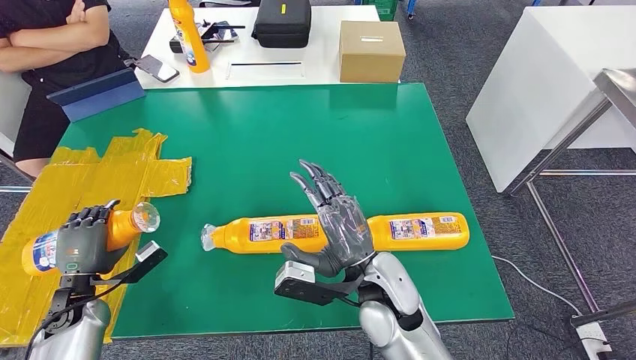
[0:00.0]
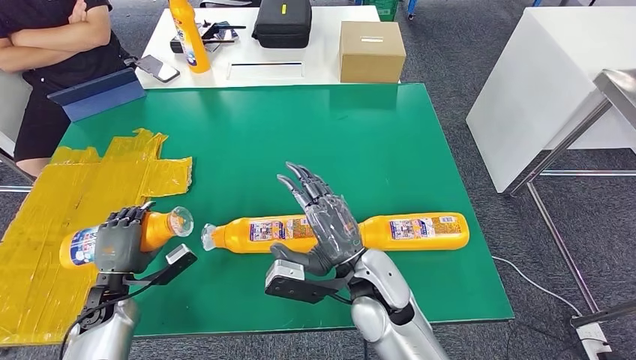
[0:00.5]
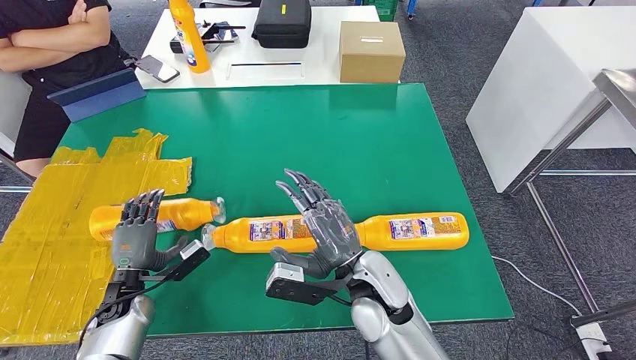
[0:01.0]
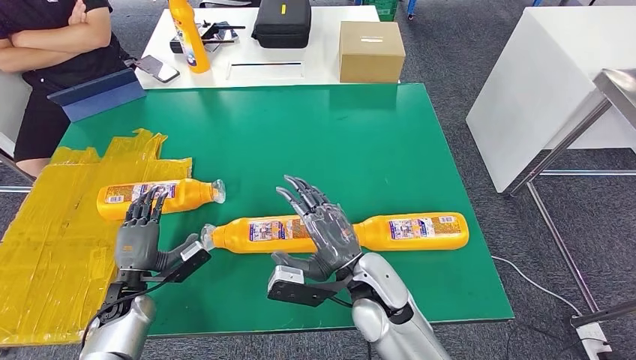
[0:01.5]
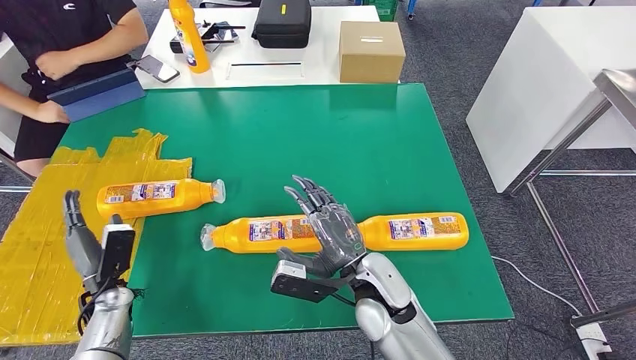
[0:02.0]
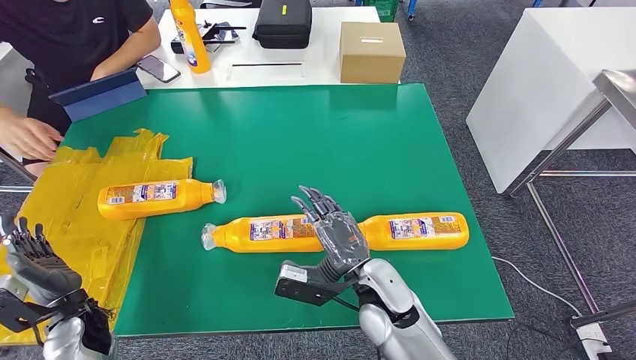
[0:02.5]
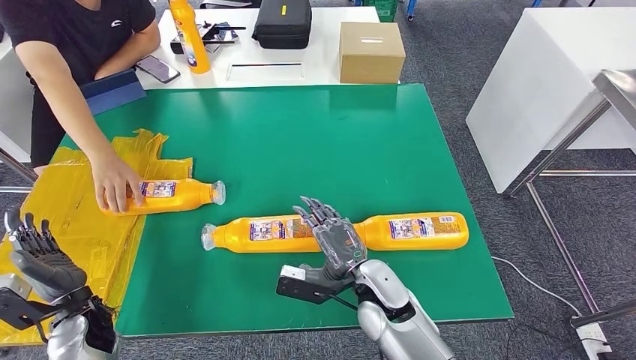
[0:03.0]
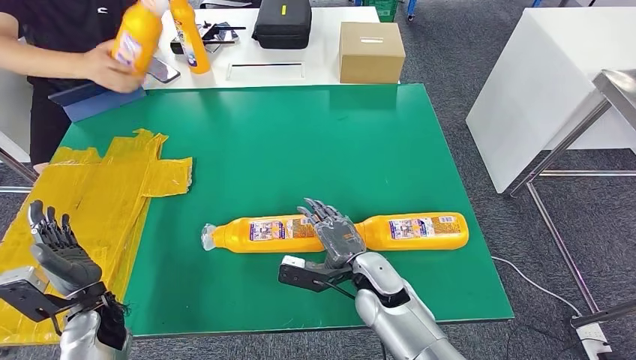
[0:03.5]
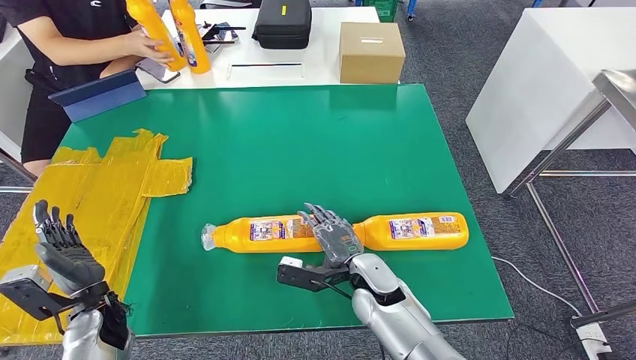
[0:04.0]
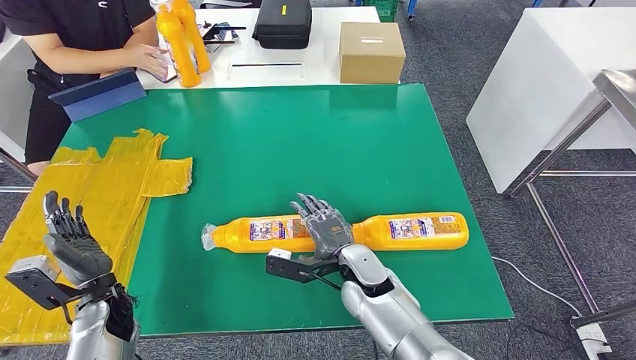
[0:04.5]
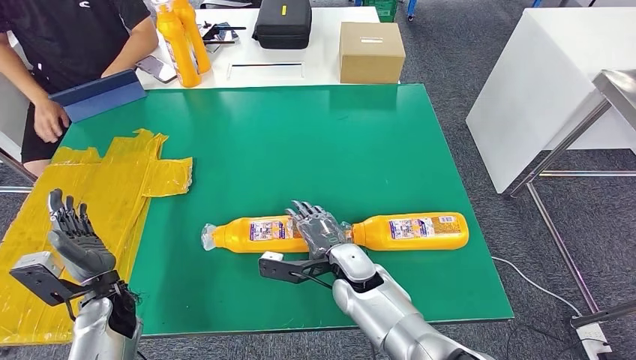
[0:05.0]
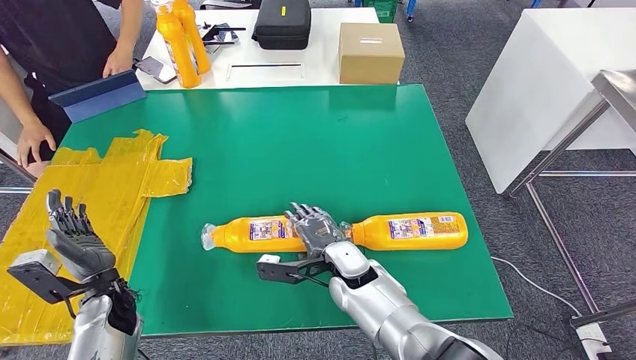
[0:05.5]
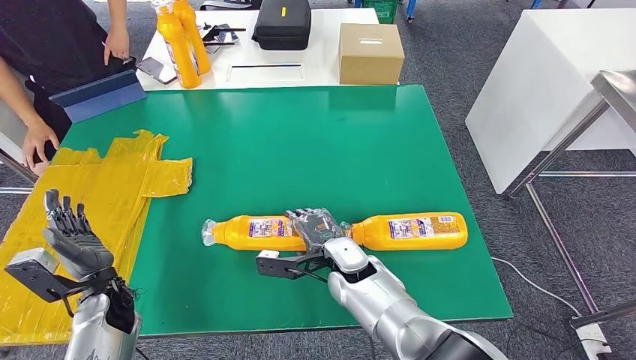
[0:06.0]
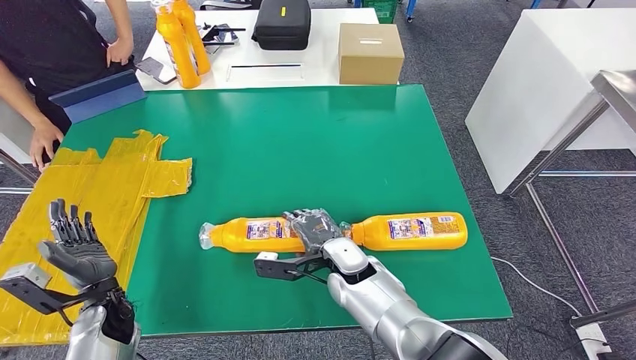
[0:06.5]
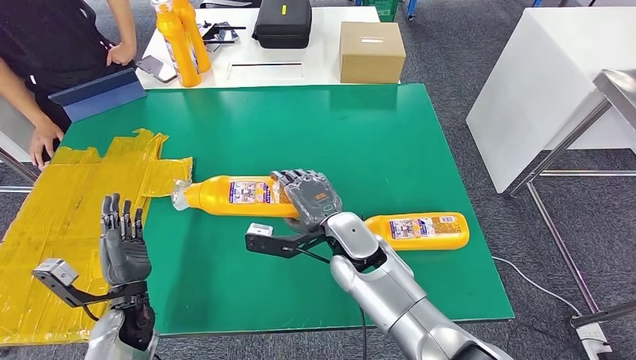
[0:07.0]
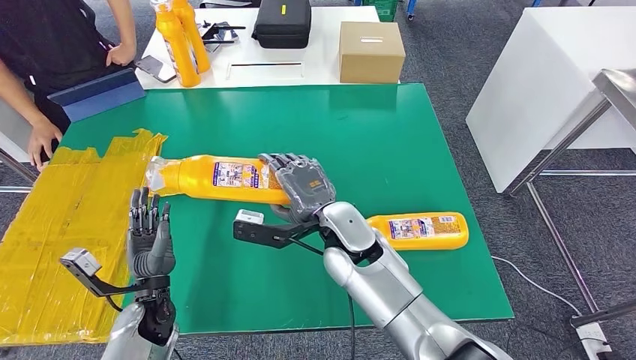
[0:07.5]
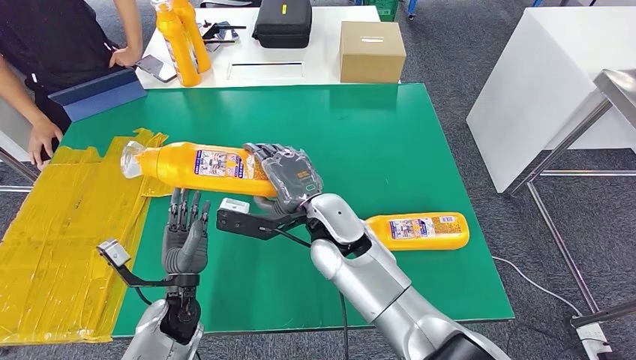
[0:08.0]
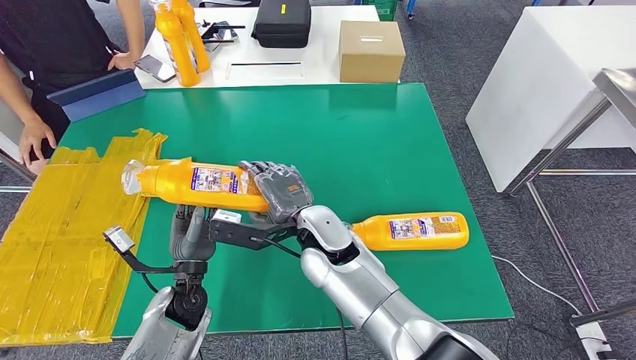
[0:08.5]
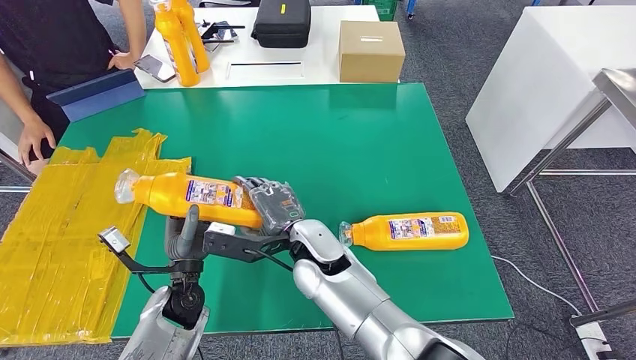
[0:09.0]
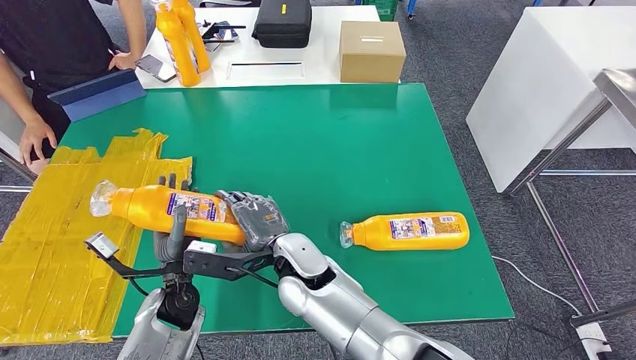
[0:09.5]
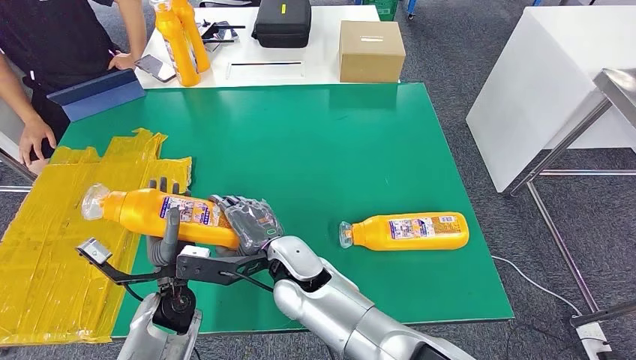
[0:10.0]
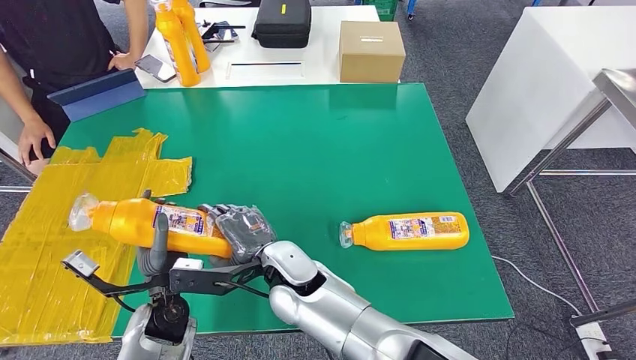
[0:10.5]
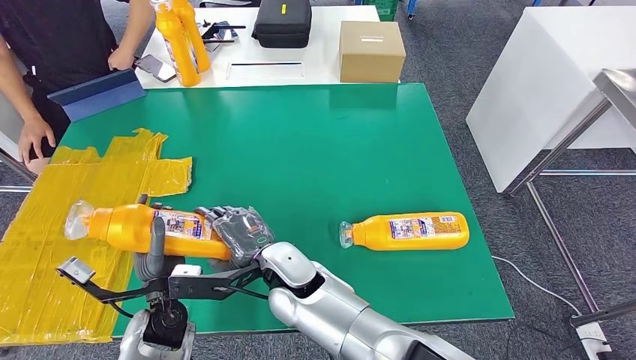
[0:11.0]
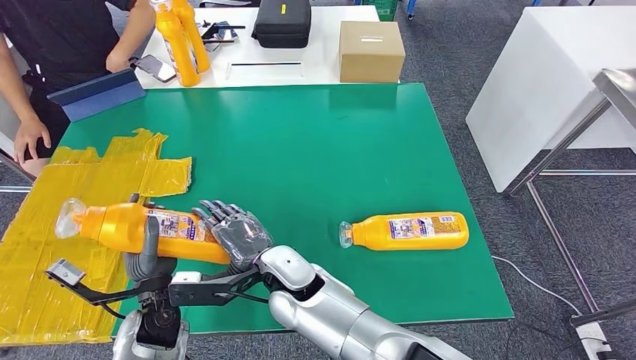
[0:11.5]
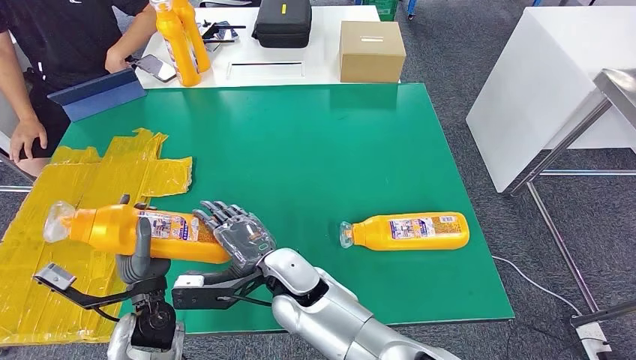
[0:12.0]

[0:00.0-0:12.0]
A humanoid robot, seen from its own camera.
Step, 0:00.0 to 0:02.0: Flip the fast-moving consumer goods bottle to the front side.
Step, 0:06.0 to 0:09.5: Pick up the fast-moving consumer goods bottle from the table.
0:00.0 to 0:02.0: The left hand is displaced to the right by some 5 cm.
0:02.0 to 0:04.0: The right hand heads downward, covering roughly 5 cm.
0:04.0 to 0:06.0: The right hand travels to the left by approximately 5 cm.
0:08.0 to 0:10.0: The right hand shifts approximately 10 cm to the left and downward.
0:10.0 to 0:12.0: The hands make only small movements.

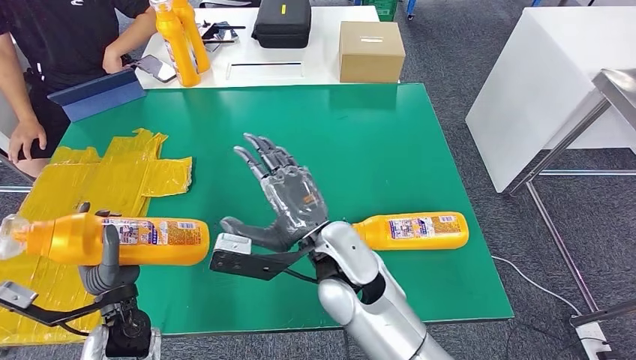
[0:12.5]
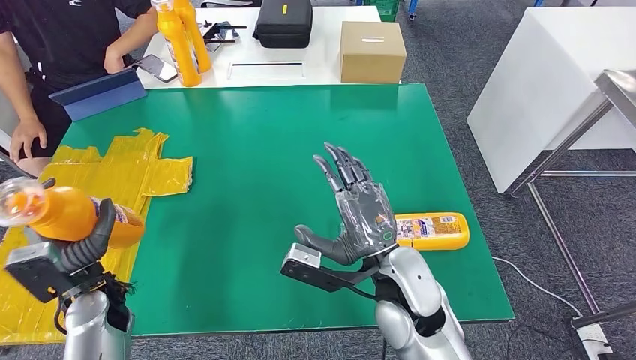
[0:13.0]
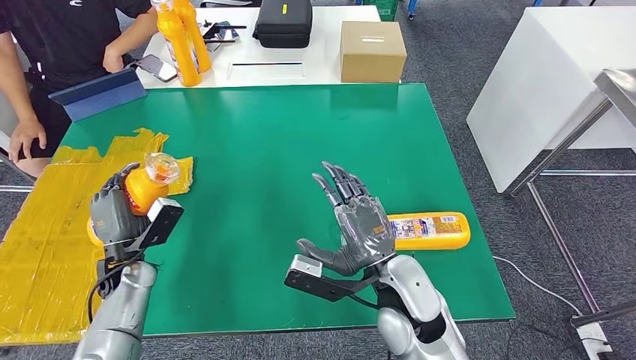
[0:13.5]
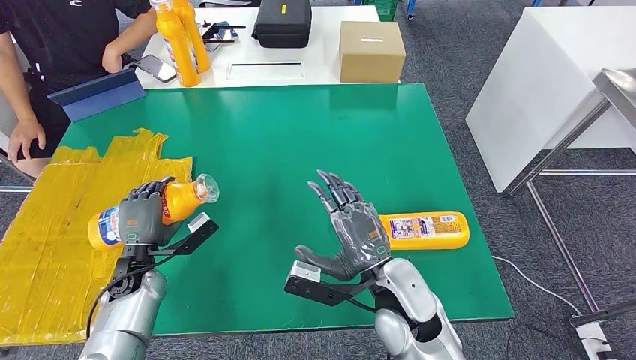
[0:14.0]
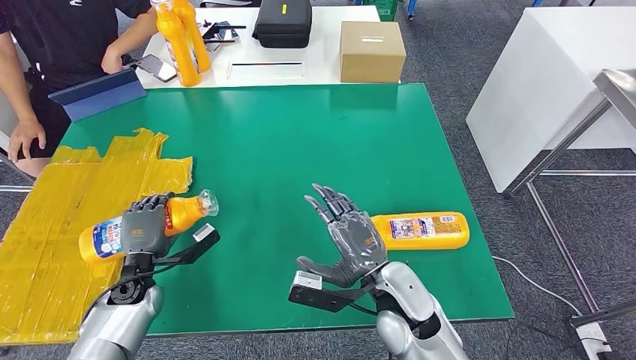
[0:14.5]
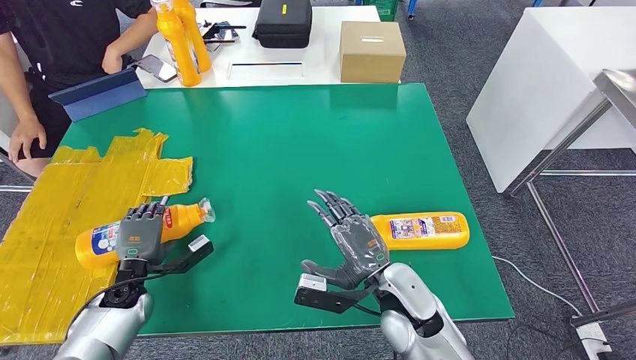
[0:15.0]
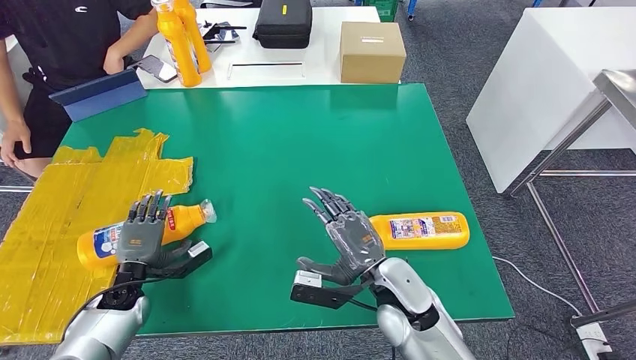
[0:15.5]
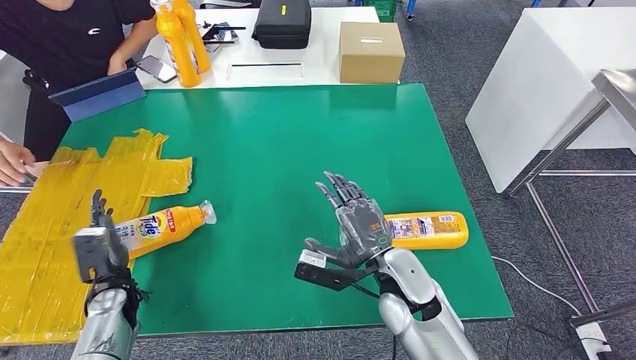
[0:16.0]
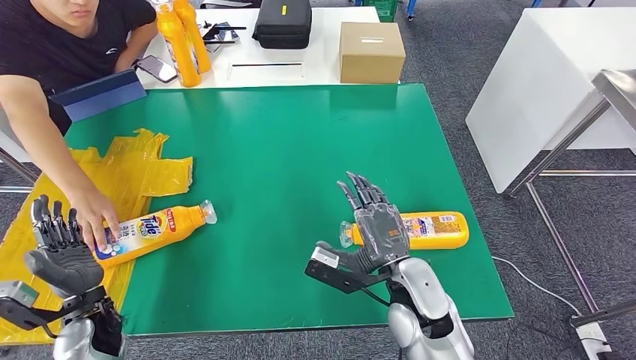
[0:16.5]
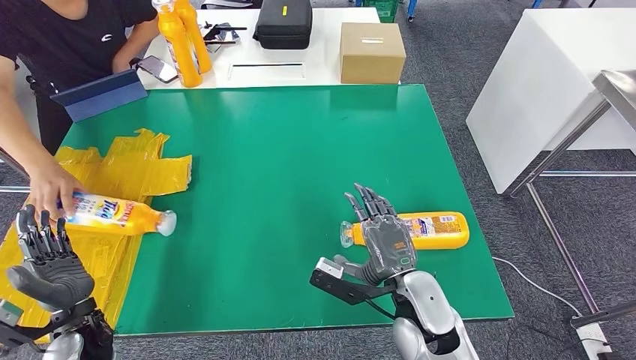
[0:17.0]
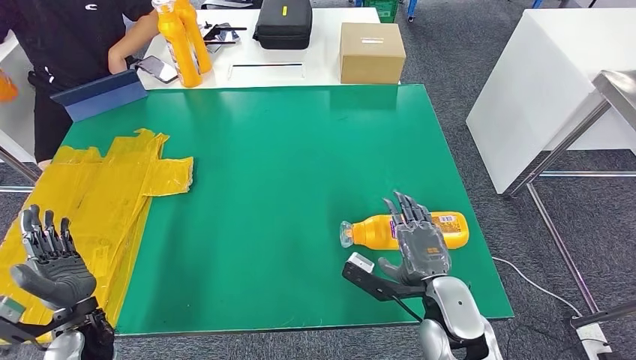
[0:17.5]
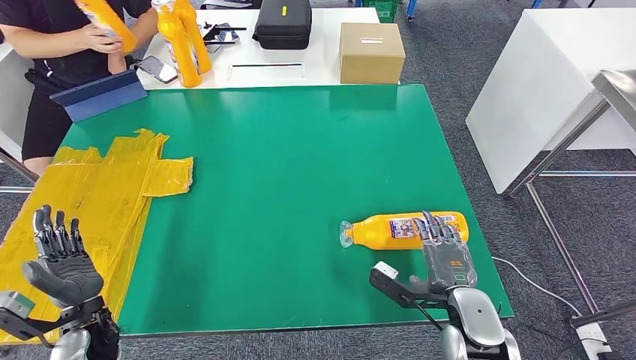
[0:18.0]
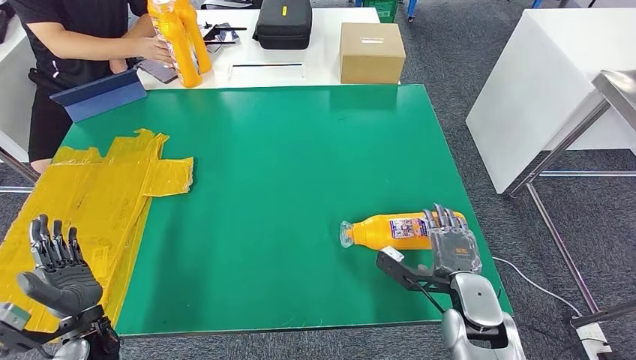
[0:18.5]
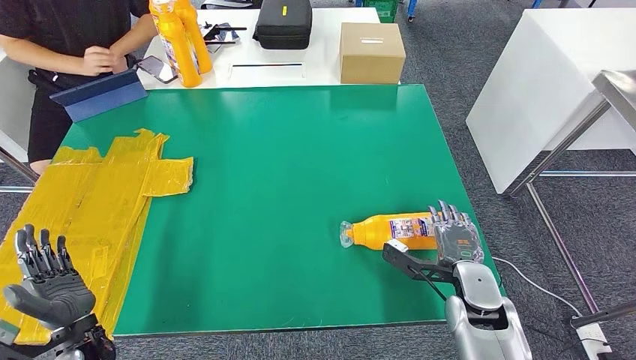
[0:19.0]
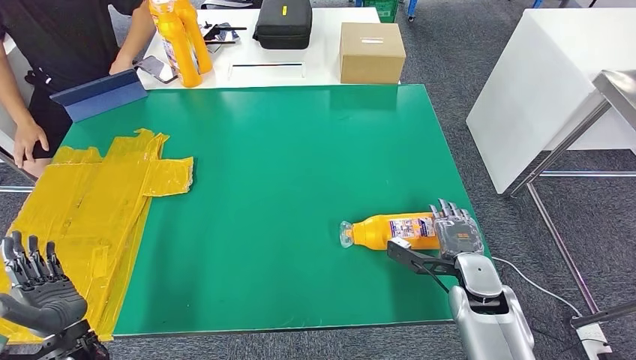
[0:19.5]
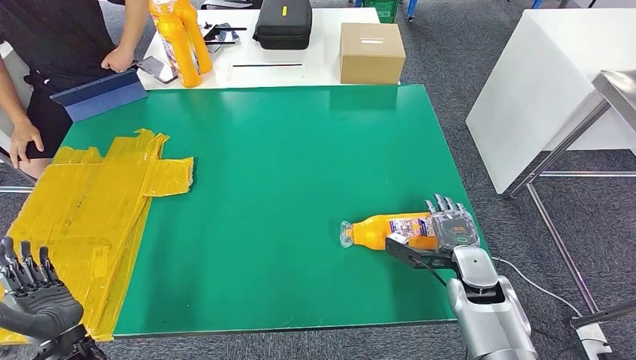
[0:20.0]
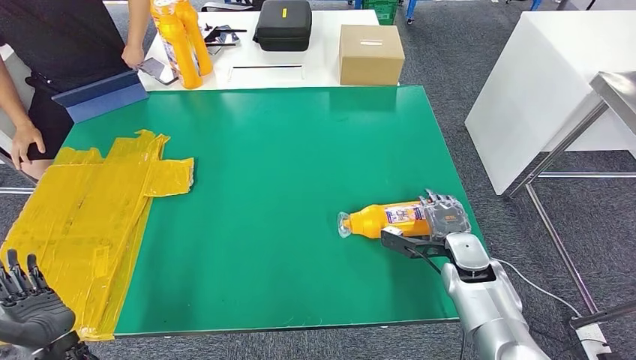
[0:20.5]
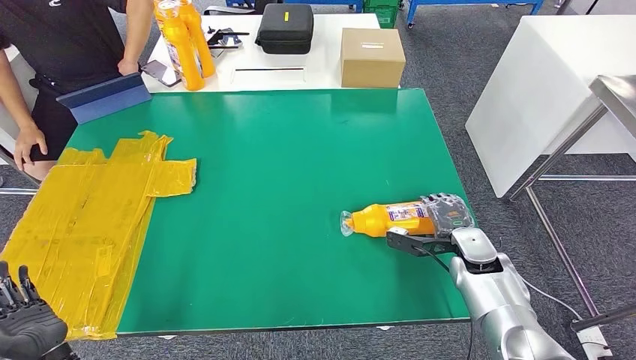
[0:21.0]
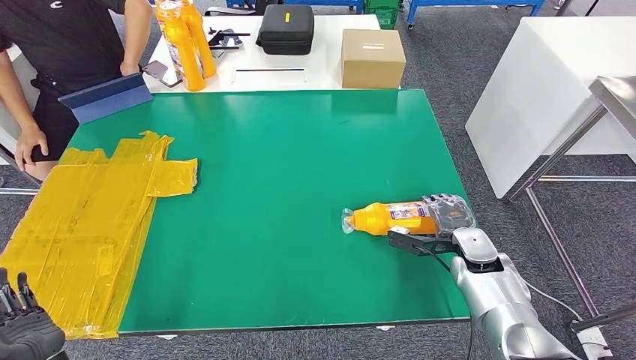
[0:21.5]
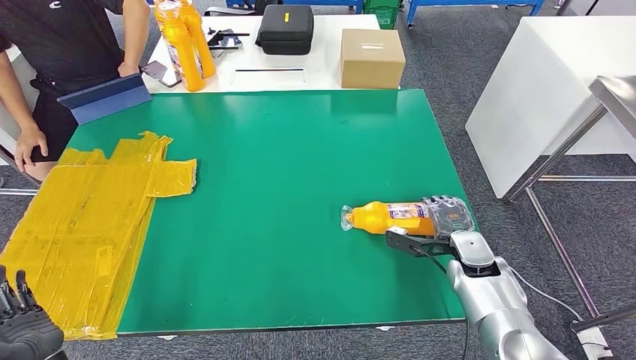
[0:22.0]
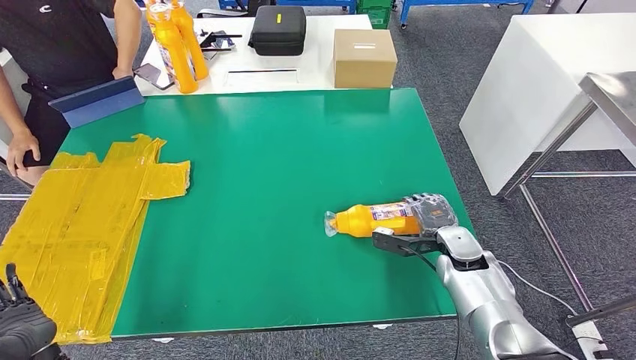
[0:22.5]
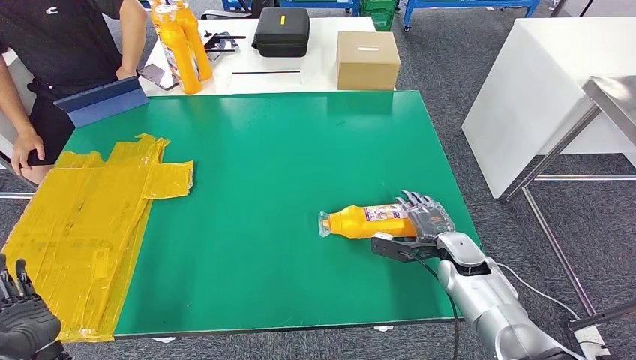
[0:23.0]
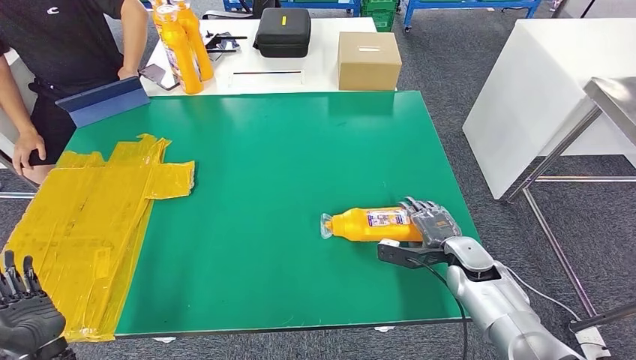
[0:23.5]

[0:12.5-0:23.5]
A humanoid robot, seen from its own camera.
Step, 0:12.5 to 0:17.5: Flip the fast-moving consumer goods bottle to the front side.
0:12.5 to 0:14.5: The left hand heads forward and downward, covering approximately 10 cm. Meanwhile the right hand shifts approximately 15 cm to the right and downward.
0:18.0 to 0:20.0: The right hand goes some 10 cm forward.
0:21.5 to 0:23.5: The hands make only small movements.
